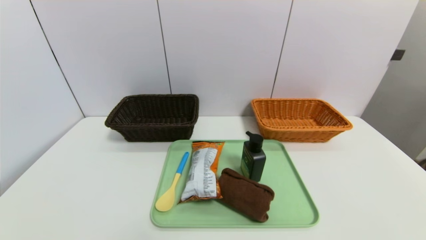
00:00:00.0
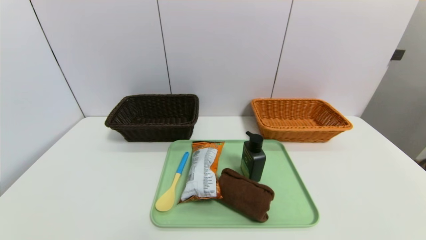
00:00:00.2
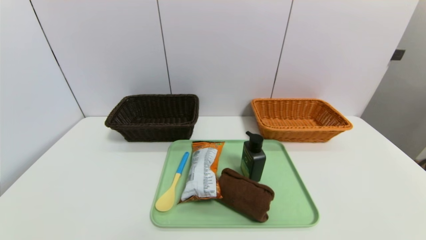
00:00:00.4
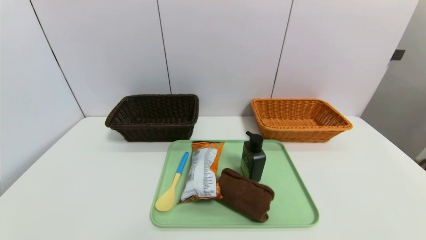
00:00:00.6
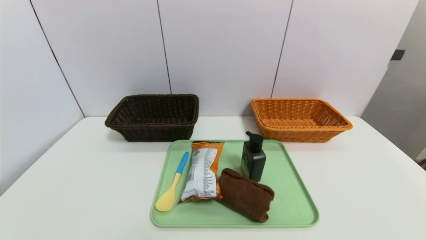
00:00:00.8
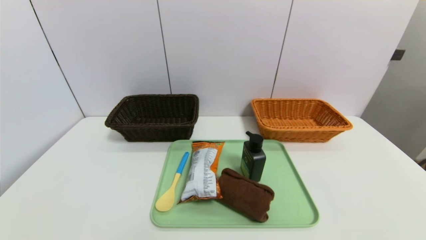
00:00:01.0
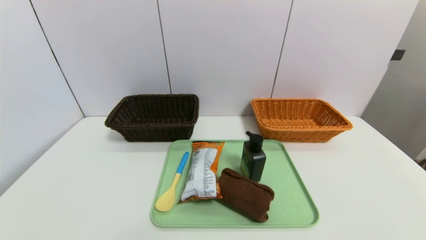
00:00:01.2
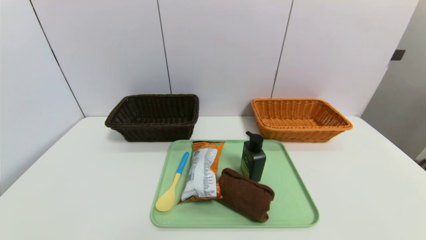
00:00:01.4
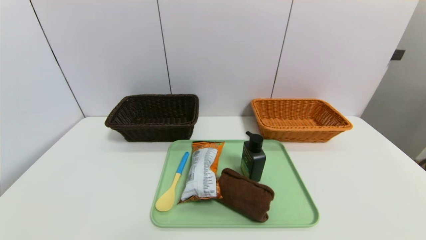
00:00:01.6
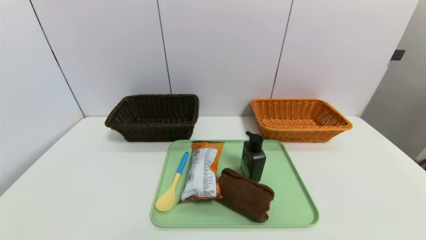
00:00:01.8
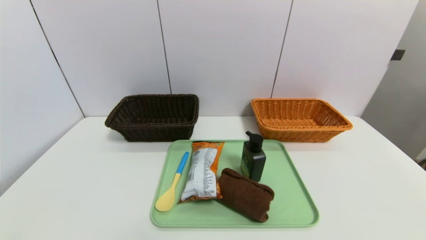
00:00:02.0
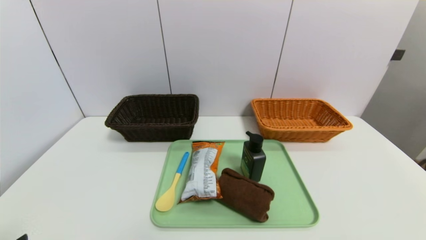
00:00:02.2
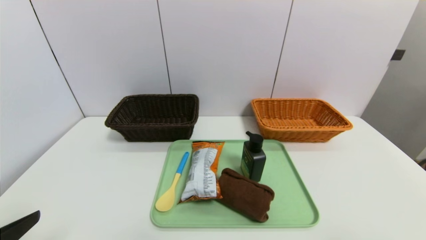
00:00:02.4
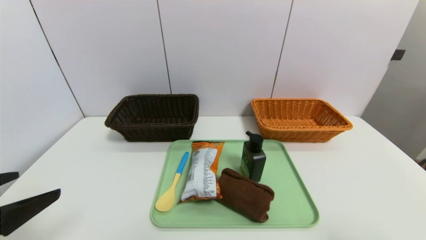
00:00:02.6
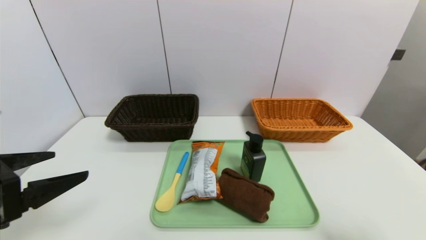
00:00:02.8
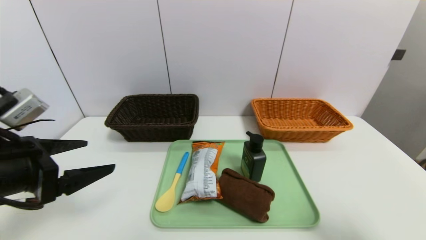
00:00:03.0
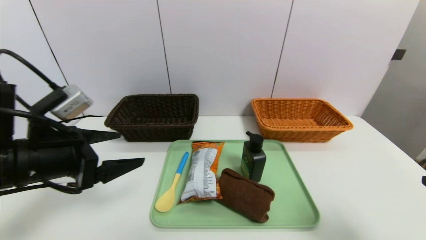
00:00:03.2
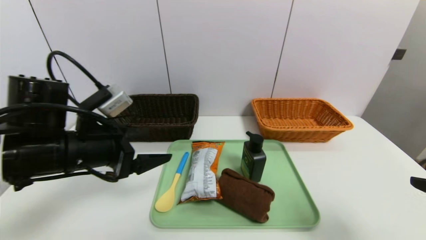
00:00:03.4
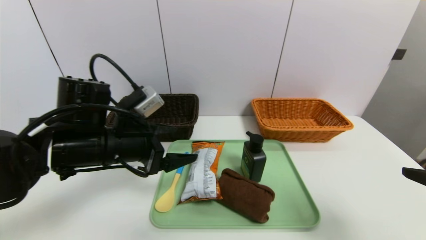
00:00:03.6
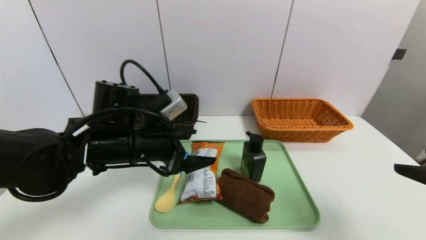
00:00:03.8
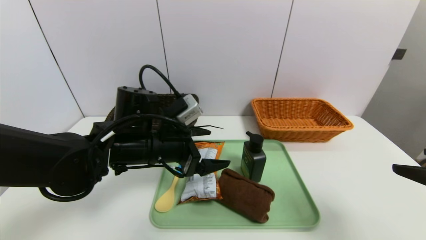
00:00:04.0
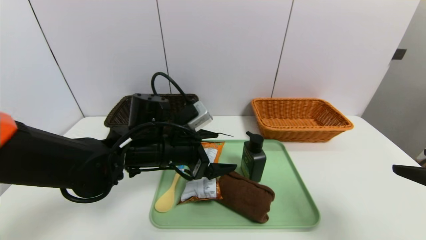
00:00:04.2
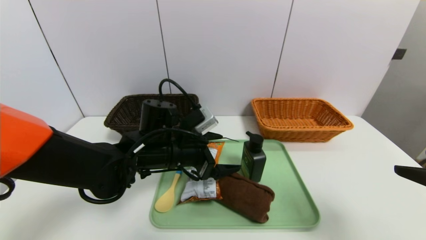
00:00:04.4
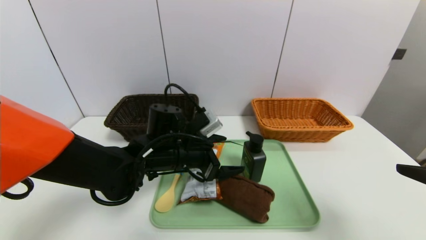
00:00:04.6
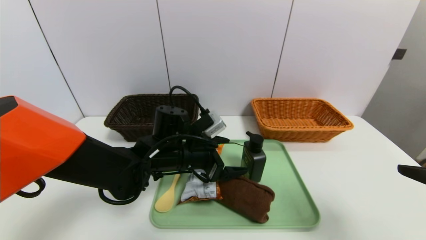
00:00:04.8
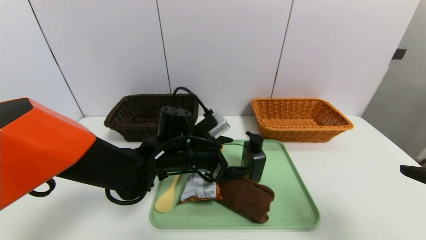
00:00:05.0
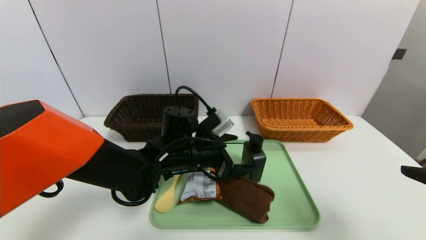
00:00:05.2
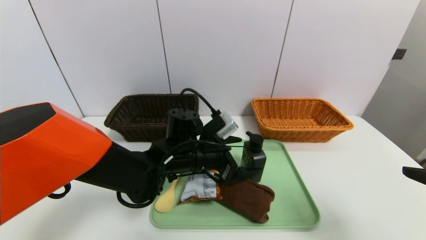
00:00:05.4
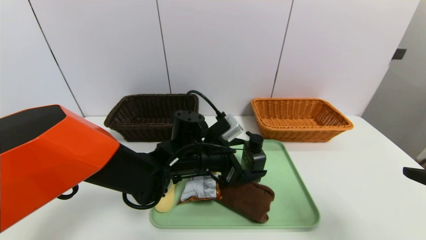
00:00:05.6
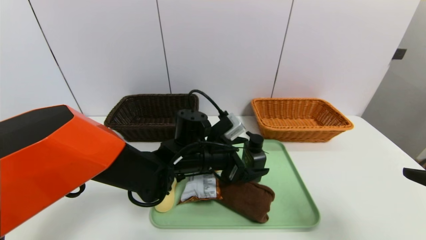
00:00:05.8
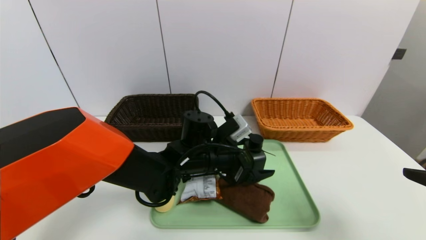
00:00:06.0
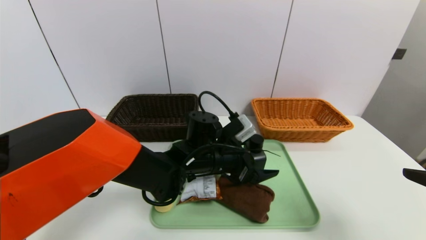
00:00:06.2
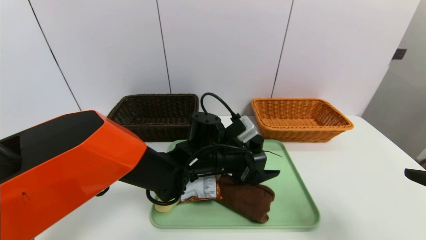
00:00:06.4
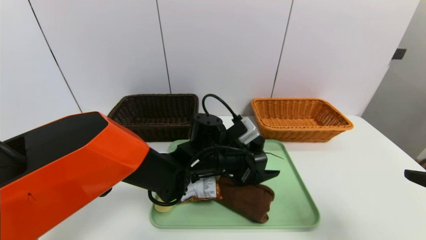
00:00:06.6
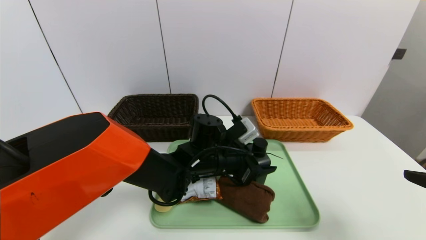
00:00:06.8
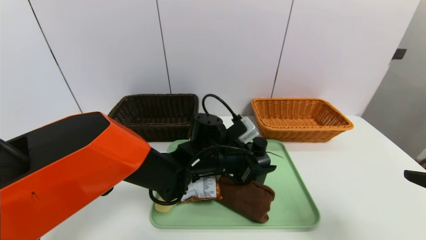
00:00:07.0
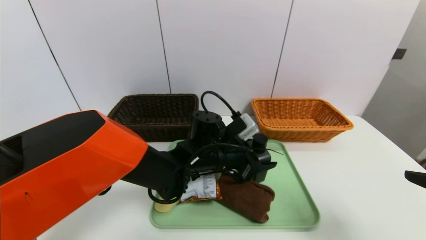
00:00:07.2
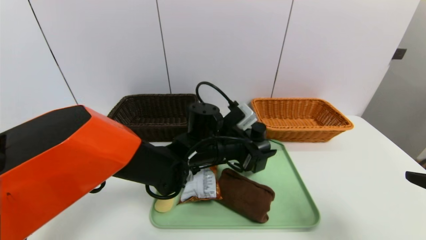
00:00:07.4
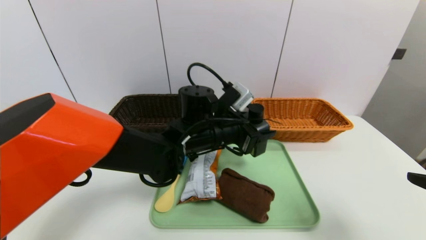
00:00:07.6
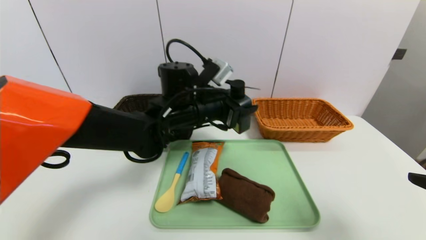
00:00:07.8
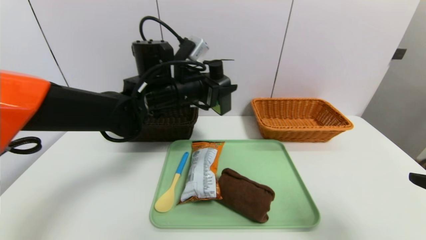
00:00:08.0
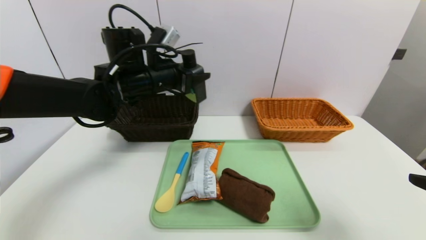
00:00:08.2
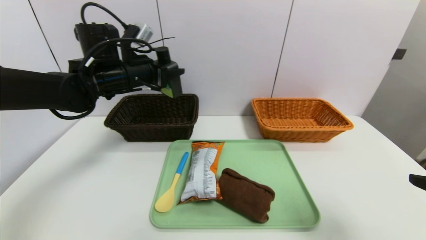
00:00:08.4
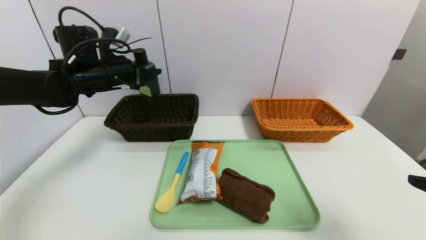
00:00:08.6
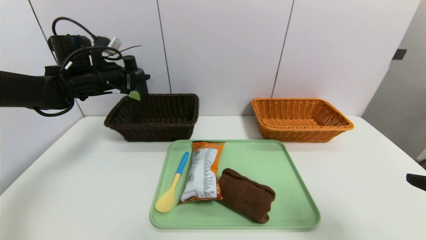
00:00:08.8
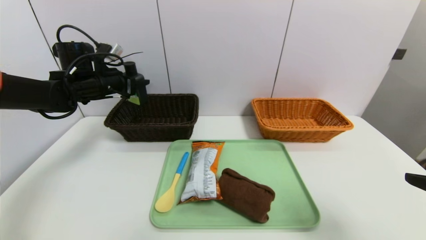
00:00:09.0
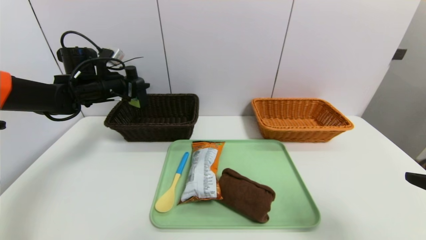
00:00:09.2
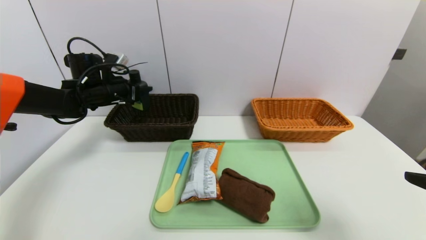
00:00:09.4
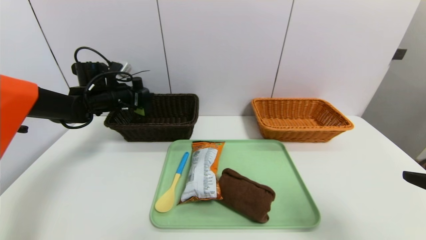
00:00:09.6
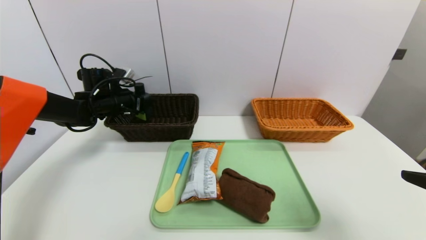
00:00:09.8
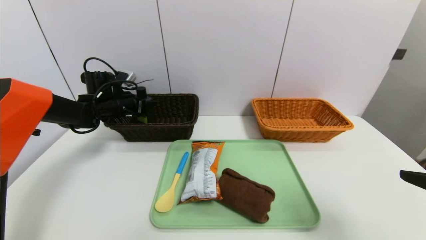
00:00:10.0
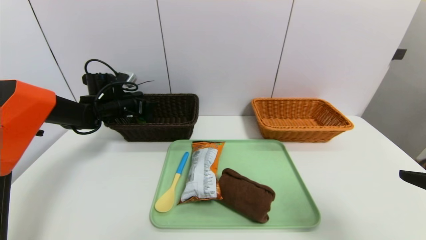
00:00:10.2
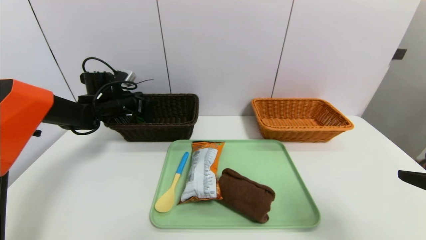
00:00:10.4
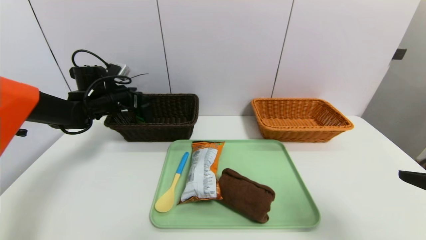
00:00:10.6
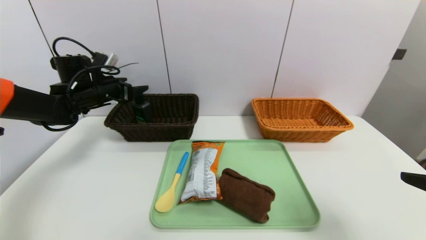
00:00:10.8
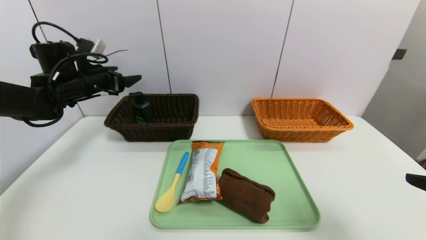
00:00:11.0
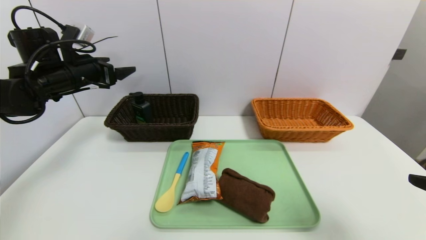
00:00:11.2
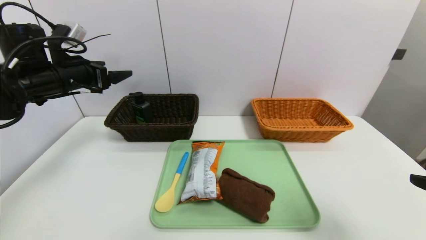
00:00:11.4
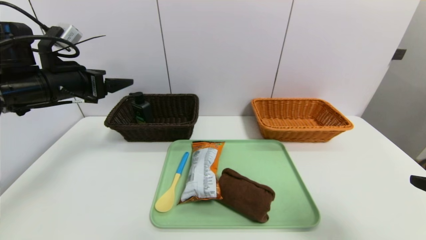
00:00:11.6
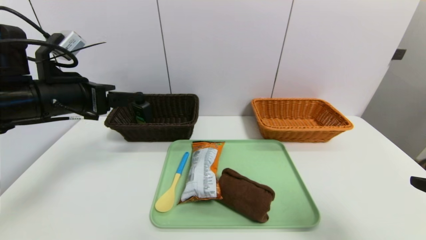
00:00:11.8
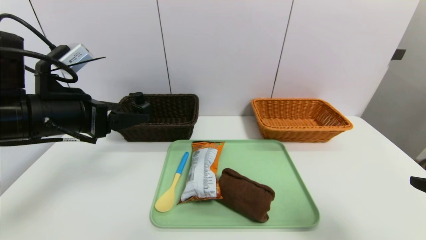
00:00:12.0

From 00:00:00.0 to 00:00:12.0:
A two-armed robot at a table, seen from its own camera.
Task of the whole recording: place the food in the right basket with the right gripper, and place the non food items in the left basket with the left gripper.
Step, from 00:00:00.0 to 00:00:10.8: Grasp the hard cleanser and put it in the left basket.
From 00:00:01.6 to 00:00:03.0: The right gripper heads upward and forward, covering some 15 cm. The left gripper moves forward and upward, approximately 20 cm.
From 00:00:03.0 to 00:00:04.4: The left gripper heads to the right, forward and downward, covering approximately 25 cm.
From 00:00:04.4 to 00:00:06.0: The left gripper heads to the right, covering about 5 cm.
From 00:00:06.0 to 00:00:07.6: The left gripper shifts roughly 5 cm upward, and closes up.
From 00:00:07.6 to 00:00:09.0: The left gripper shifts roughly 25 cm to the left.
From 00:00:09.0 to 00:00:10.4: The left gripper moves downward, some 5 cm.
From 00:00:10.4 to 00:00:12.0: The left gripper moves backward and upward, about 25 cm.

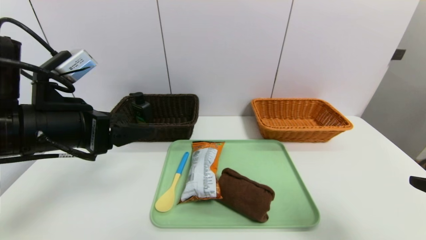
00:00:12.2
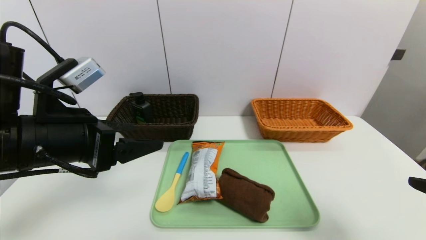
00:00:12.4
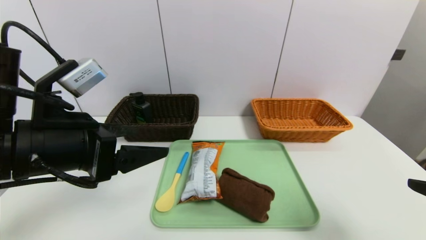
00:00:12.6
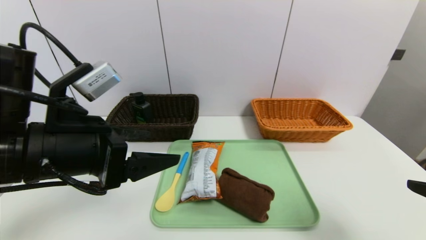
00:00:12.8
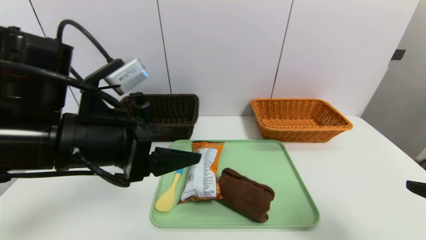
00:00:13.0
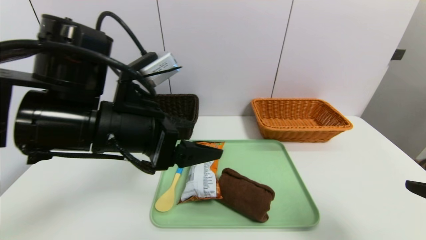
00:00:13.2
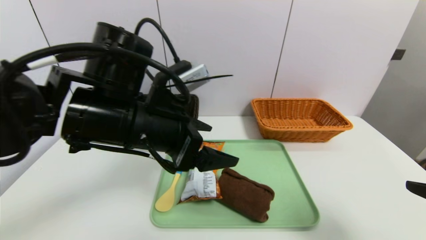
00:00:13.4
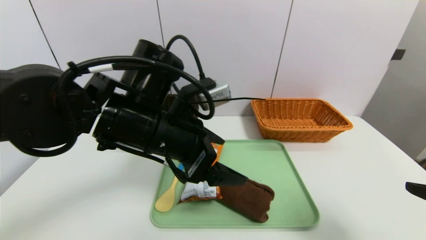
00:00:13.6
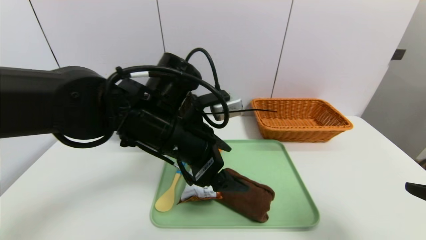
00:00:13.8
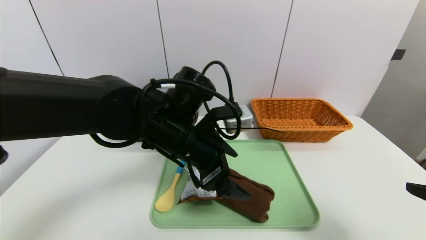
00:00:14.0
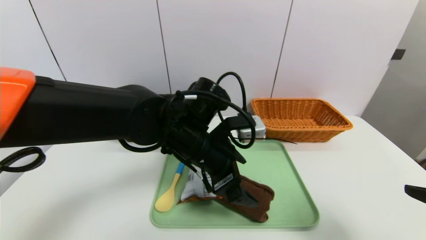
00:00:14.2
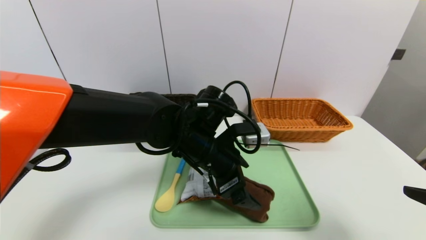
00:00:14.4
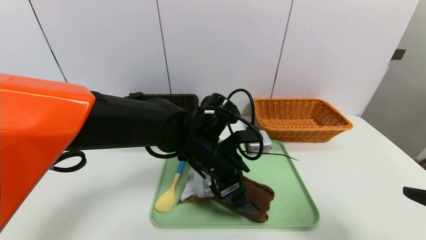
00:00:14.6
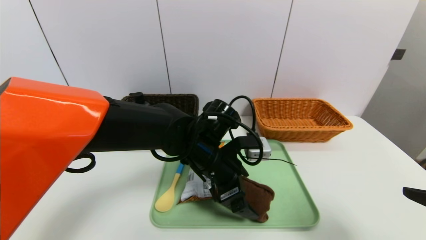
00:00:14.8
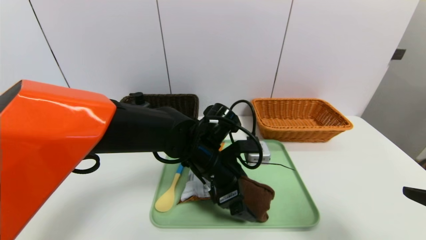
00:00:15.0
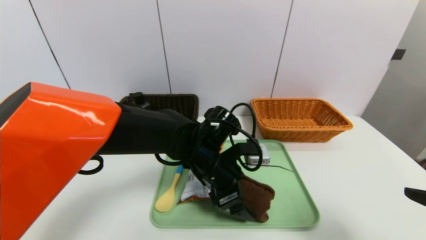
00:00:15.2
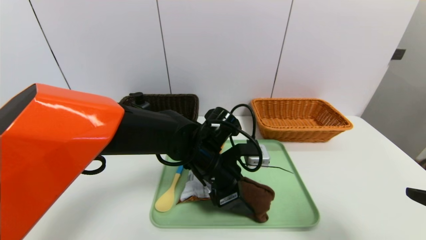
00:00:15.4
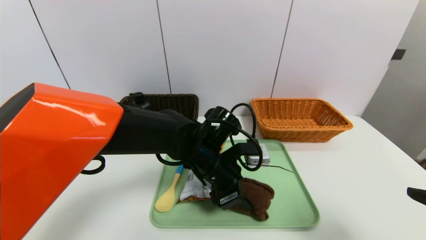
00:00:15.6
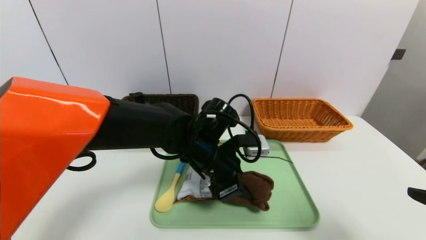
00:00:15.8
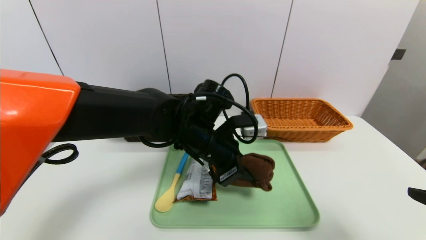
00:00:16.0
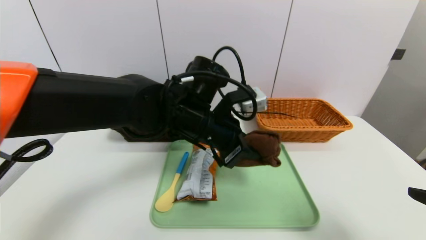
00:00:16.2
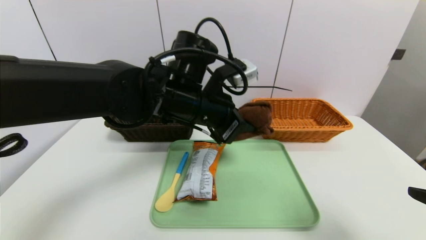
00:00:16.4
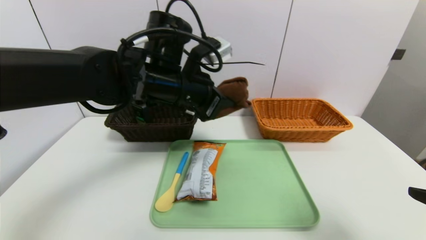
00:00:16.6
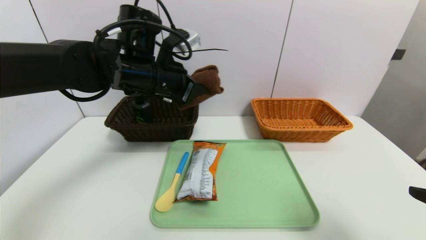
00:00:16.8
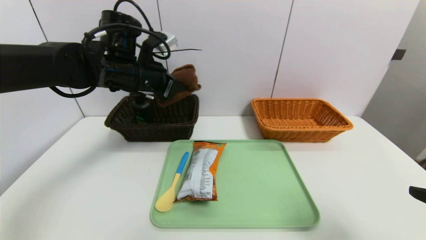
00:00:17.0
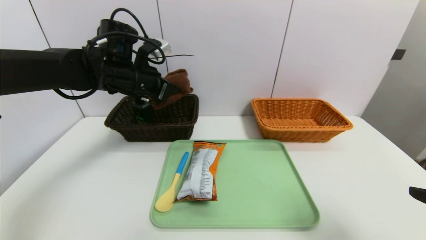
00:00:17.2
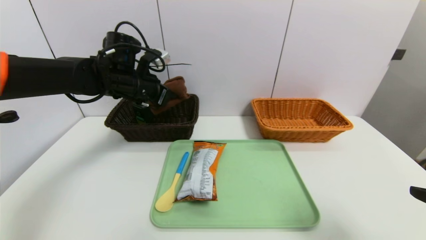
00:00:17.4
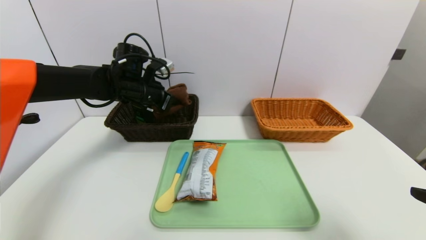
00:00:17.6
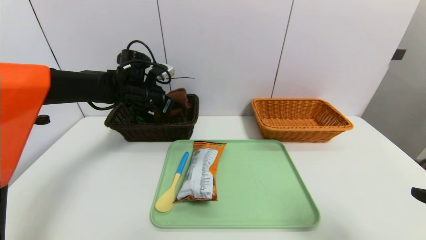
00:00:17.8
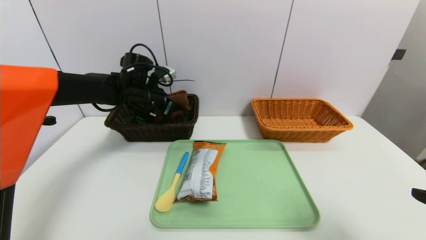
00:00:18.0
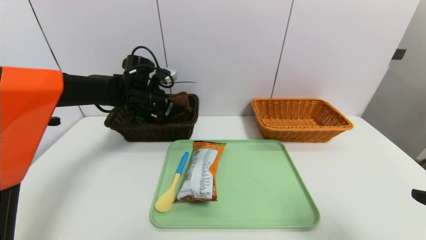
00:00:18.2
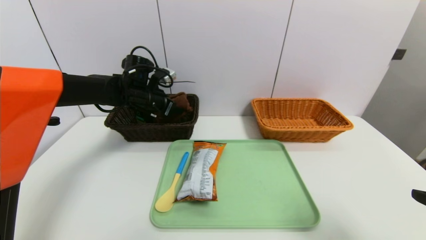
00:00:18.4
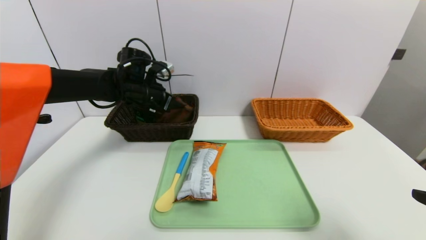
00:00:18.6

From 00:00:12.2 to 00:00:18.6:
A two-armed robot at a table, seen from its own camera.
Task of the whole recording: place the food in the right basket with the right gripper, and place the non food items in the left basket with the left gripper.
From 00:00:12.2 to 00:00:13.8: The left gripper travels to the right by about 15 cm.
From 00:00:13.8 to 00:00:15.4: The left gripper is displaced downward and to the right by roughly 10 cm, and closes its fingers.
From 00:00:15.4 to 00:00:17.0: The left gripper goes roughly 25 cm to the left, upward and forward, and closes up.
From 00:00:17.0 to 00:00:18.6: The left gripper moves forward and downward, approximately 10 cm, and opens.
